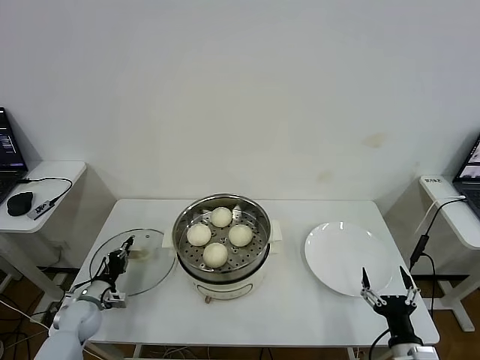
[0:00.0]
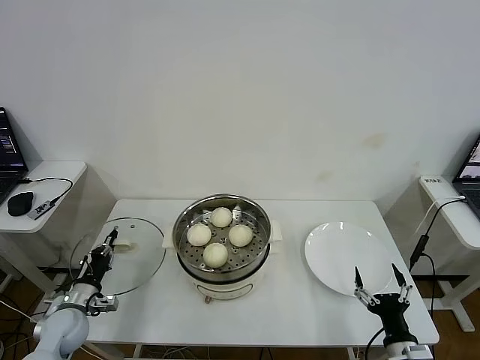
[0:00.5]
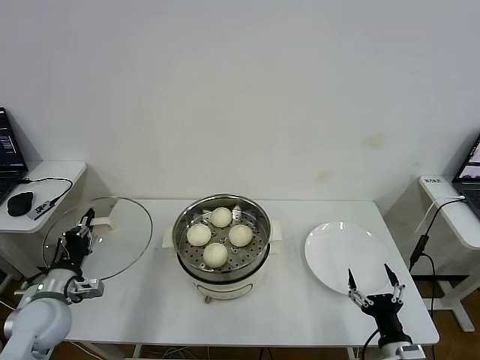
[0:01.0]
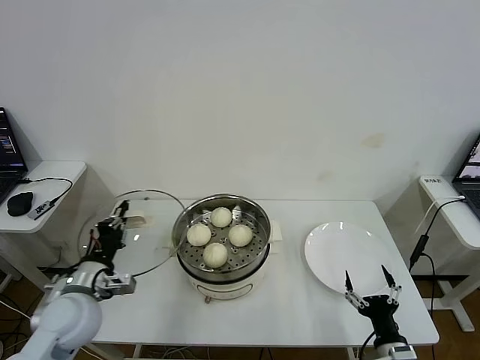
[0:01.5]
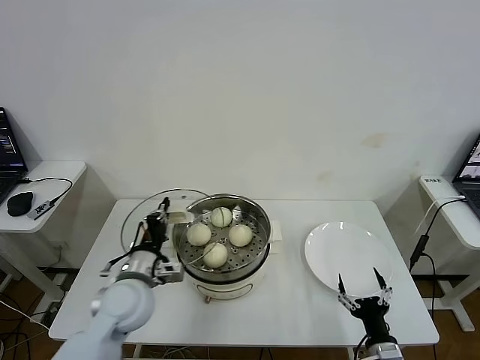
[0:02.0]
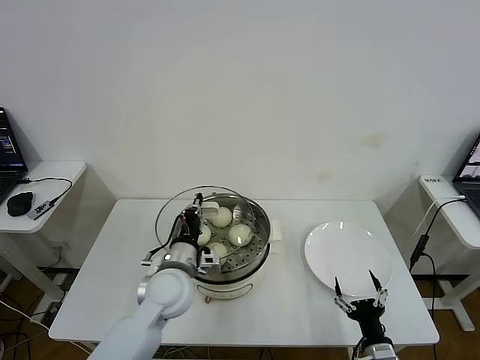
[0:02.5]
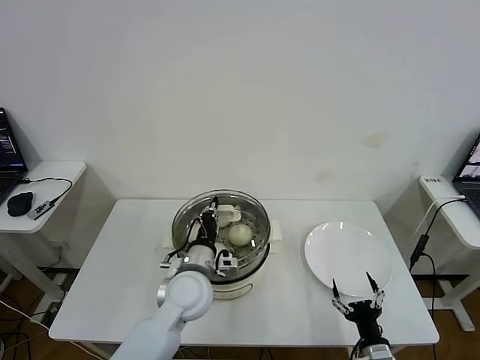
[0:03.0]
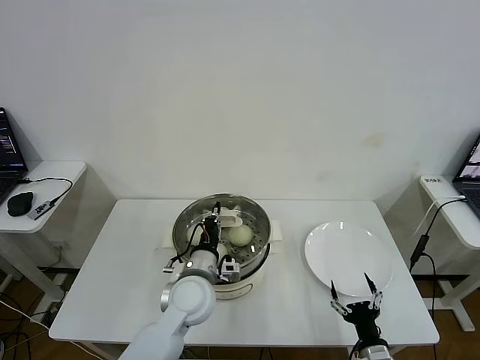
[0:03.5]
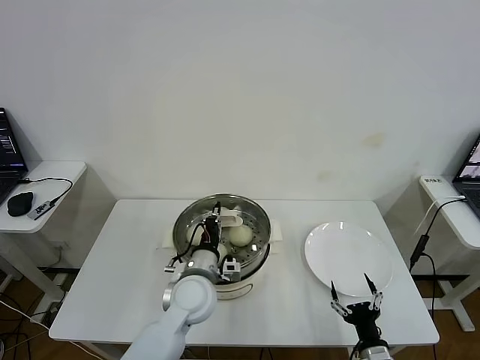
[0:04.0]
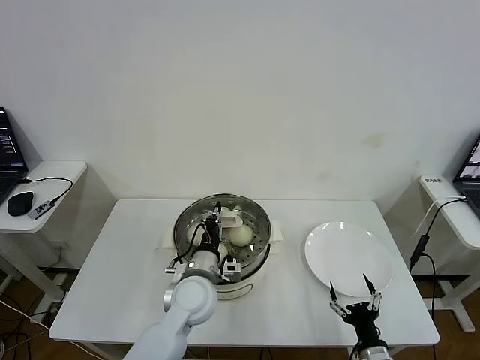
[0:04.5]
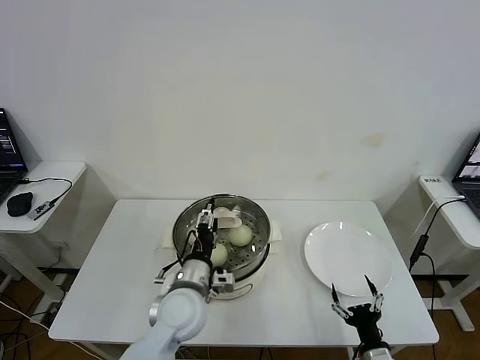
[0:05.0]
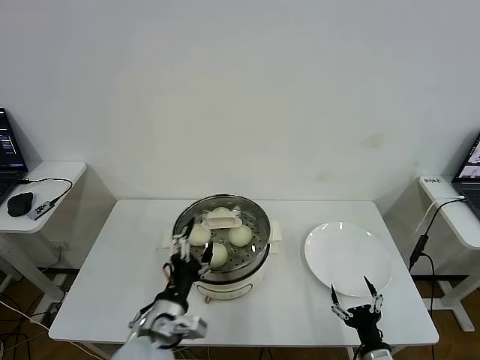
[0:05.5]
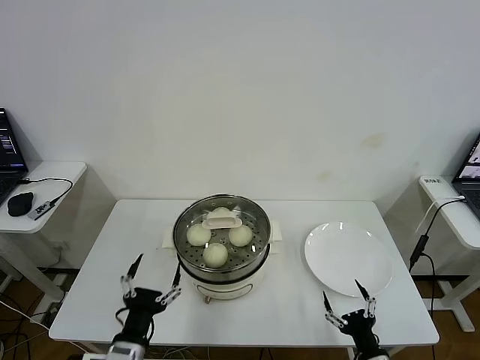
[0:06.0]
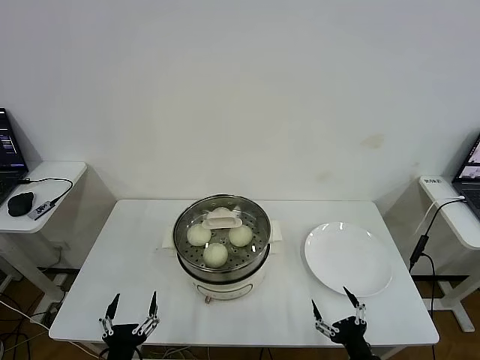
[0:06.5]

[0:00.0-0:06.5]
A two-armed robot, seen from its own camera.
Task of the whole recording: take steamed baozi put them in steamer then cover it.
Step, 0:00.5 to 0:05.0: Place the pot lid on the steamer with left gripper.
0:00.0 to 0:02.0: The left gripper moves upward and to the right, approximately 30 cm.
0:02.0 to 0:04.5: The left gripper shifts about 15 cm to the right.
0:04.5 to 0:06.5: The left gripper goes approximately 30 cm backward and to the left, and opens up.
